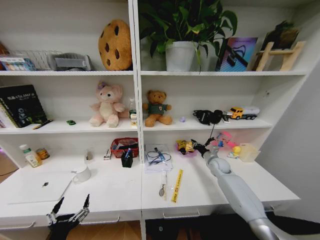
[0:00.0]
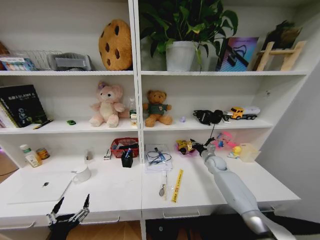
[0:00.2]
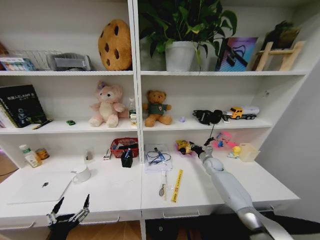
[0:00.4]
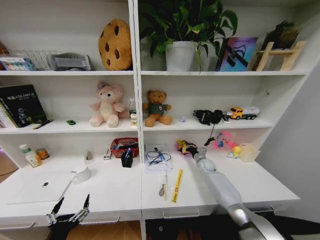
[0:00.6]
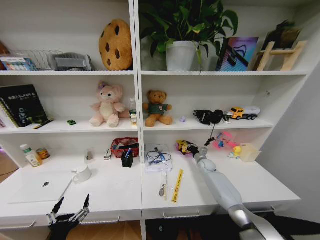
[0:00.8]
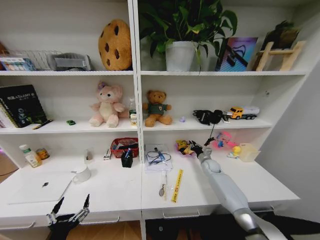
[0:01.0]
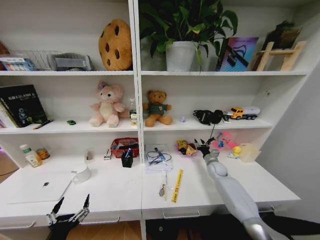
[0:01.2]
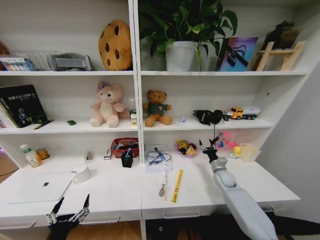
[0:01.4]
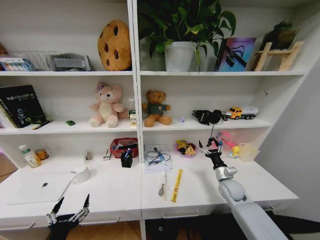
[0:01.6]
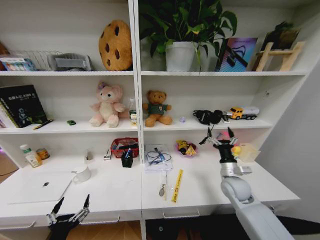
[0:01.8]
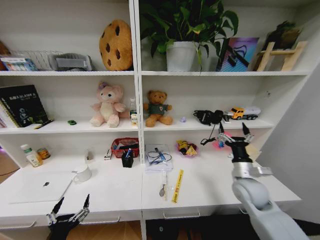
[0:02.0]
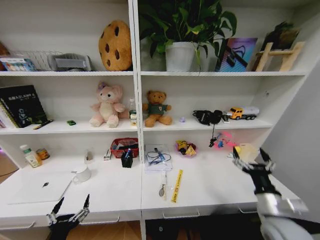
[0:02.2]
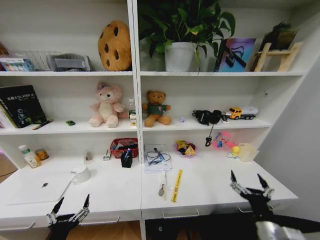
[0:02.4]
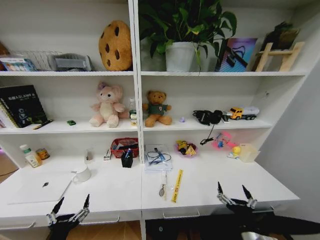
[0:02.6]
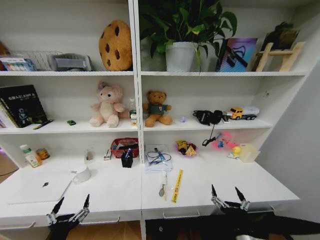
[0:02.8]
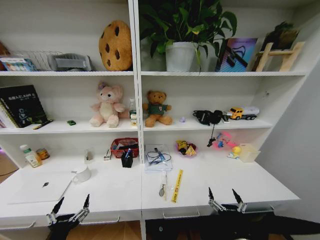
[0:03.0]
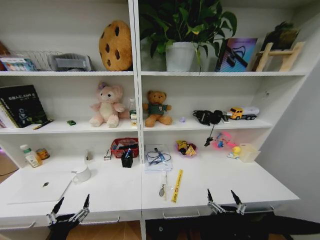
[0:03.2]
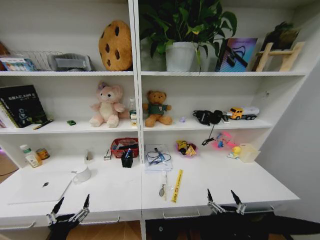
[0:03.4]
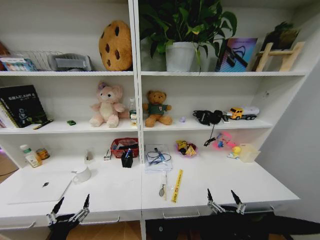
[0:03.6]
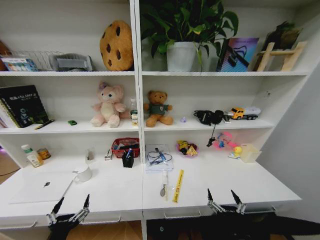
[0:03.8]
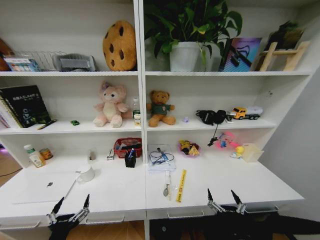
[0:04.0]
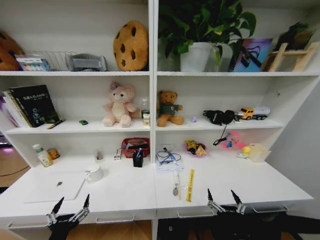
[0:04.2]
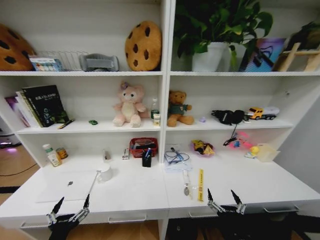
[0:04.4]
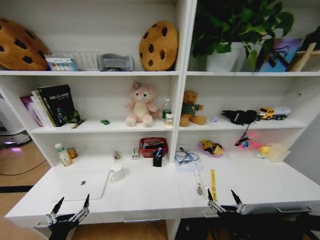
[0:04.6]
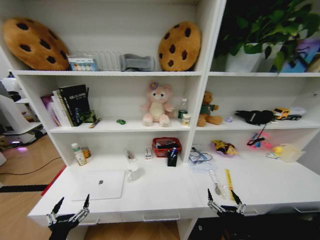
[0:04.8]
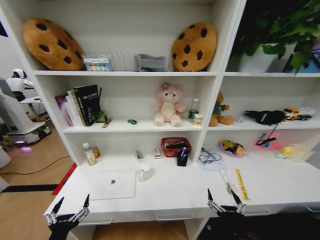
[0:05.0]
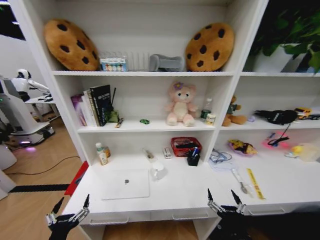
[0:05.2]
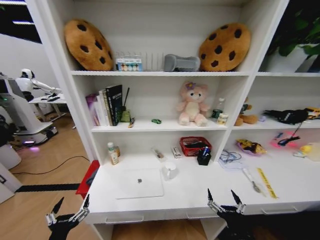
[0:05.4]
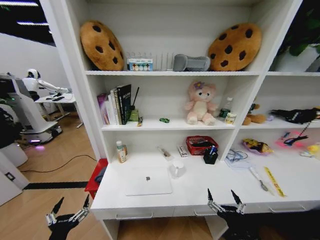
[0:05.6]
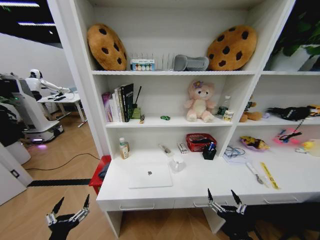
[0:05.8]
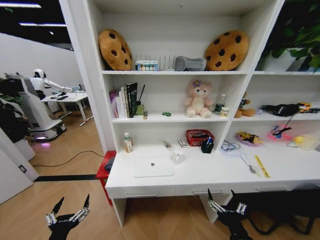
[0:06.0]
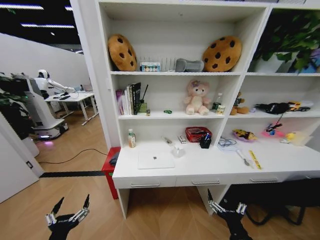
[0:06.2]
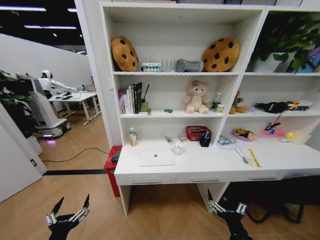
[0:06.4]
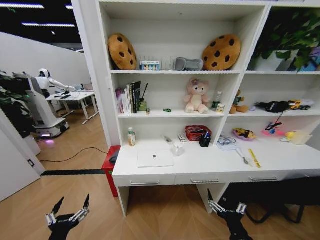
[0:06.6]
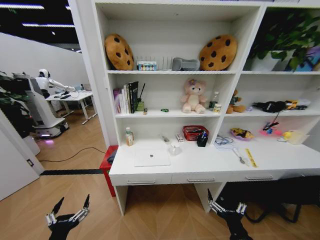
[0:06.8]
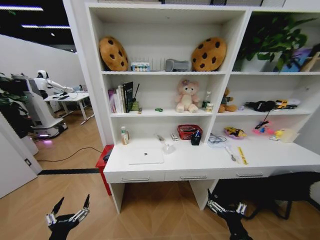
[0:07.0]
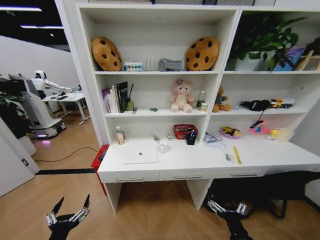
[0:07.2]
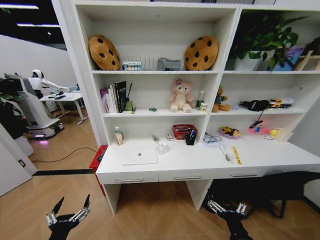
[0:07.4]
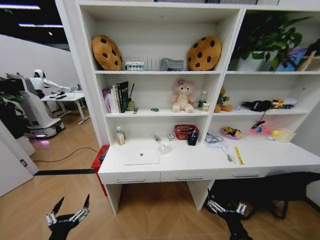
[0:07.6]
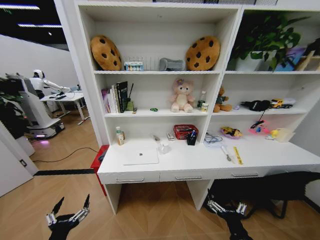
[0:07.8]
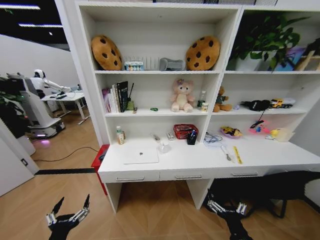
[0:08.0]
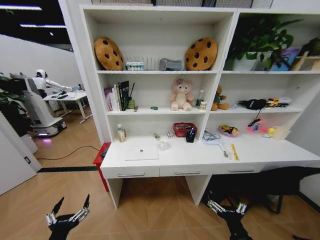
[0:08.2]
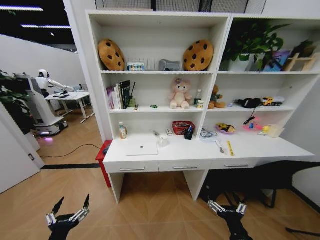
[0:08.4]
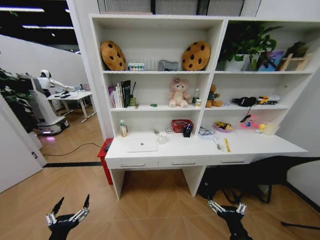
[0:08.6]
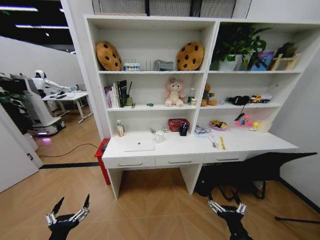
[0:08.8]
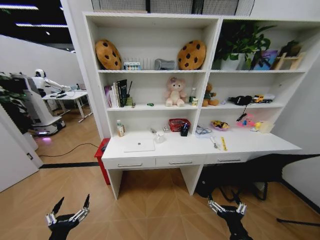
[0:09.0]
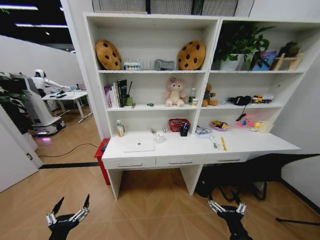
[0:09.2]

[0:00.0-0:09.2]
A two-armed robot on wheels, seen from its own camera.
Task of the whole recording: Organize the objects on the table.
0:00.0 to 0:01.6: The right gripper is displaced backward by approximately 15 cm, and opens.
0:01.6 to 0:03.0: The right gripper travels backward by approximately 30 cm.

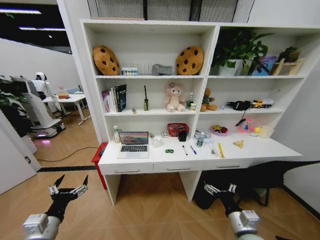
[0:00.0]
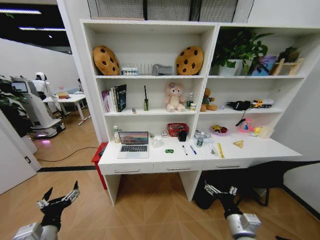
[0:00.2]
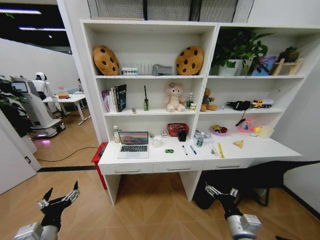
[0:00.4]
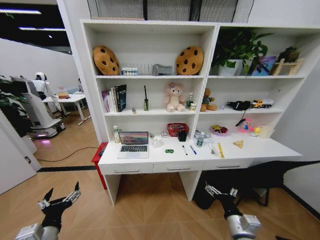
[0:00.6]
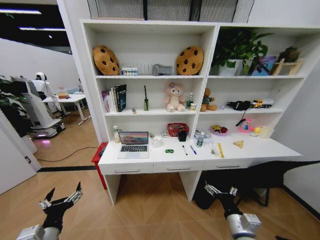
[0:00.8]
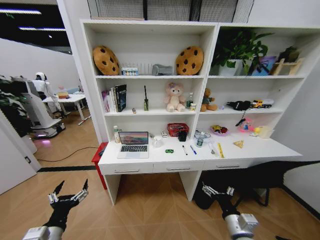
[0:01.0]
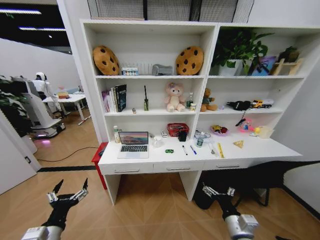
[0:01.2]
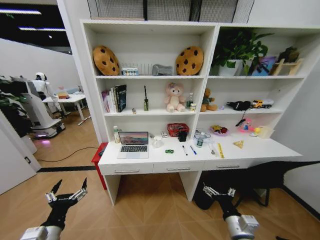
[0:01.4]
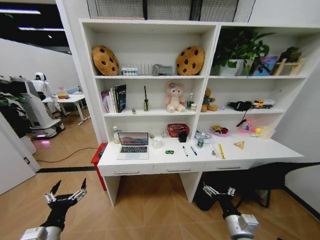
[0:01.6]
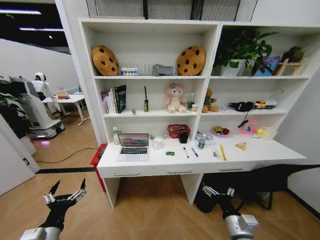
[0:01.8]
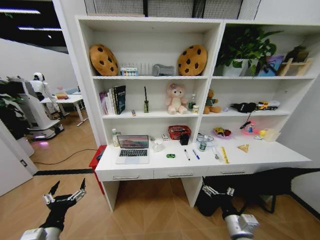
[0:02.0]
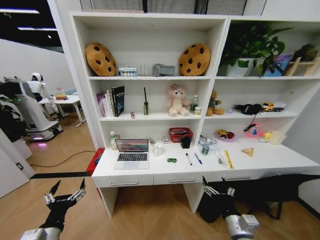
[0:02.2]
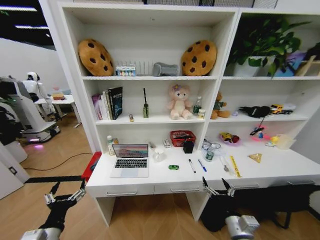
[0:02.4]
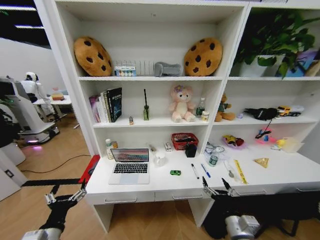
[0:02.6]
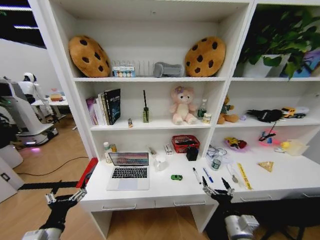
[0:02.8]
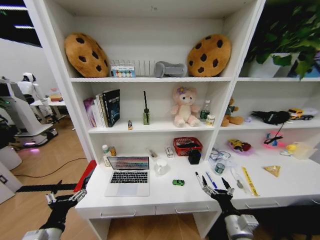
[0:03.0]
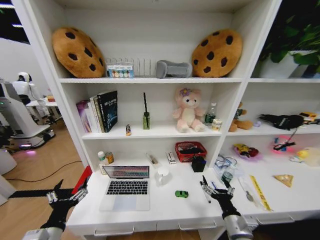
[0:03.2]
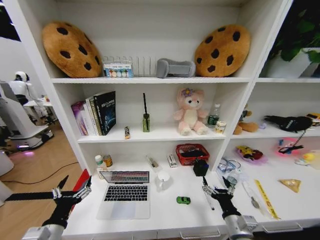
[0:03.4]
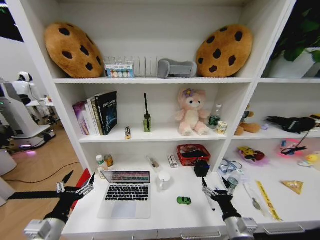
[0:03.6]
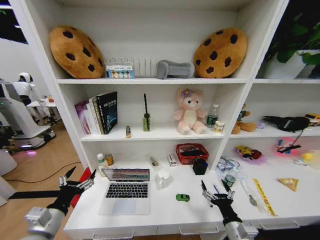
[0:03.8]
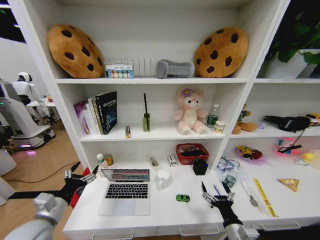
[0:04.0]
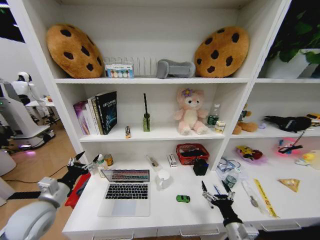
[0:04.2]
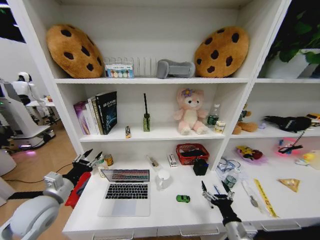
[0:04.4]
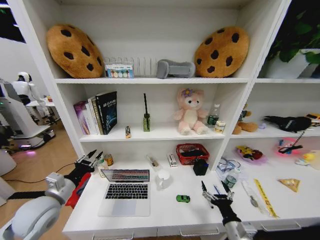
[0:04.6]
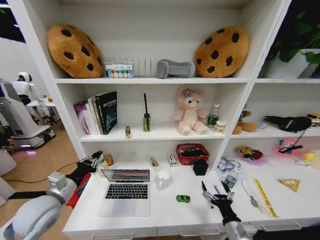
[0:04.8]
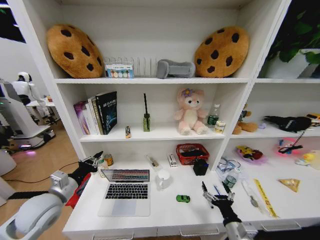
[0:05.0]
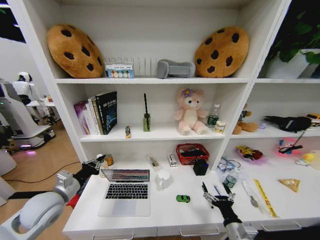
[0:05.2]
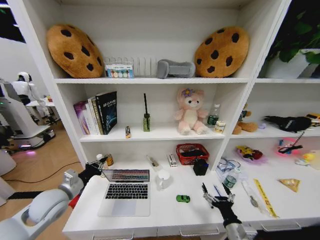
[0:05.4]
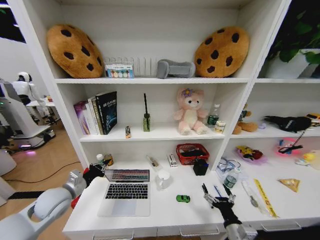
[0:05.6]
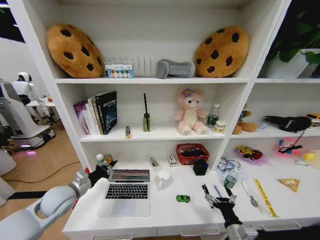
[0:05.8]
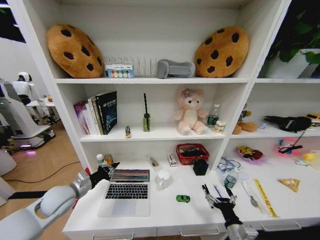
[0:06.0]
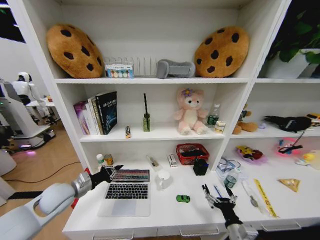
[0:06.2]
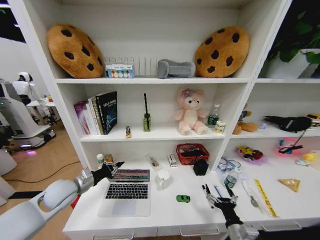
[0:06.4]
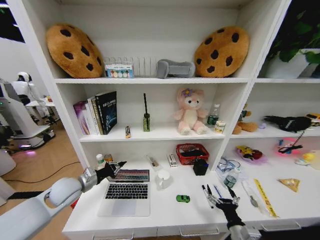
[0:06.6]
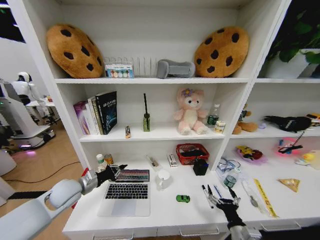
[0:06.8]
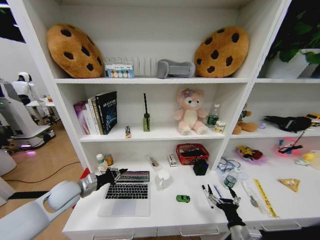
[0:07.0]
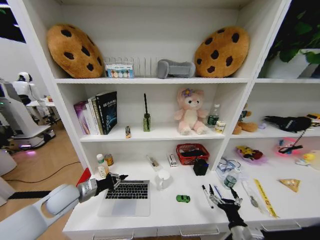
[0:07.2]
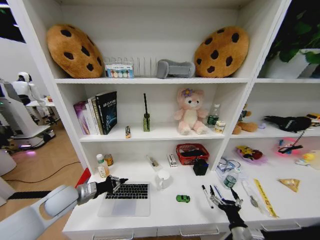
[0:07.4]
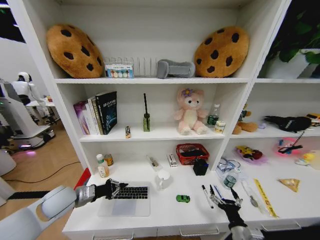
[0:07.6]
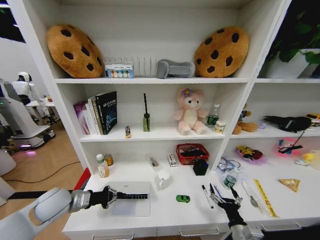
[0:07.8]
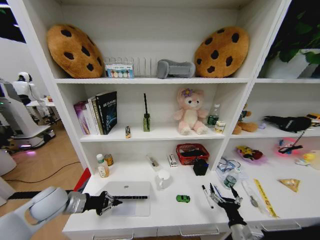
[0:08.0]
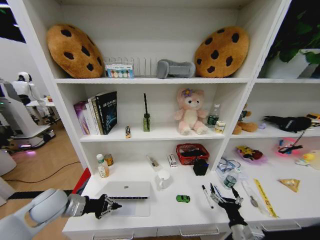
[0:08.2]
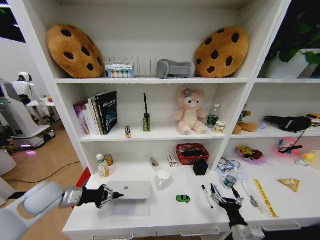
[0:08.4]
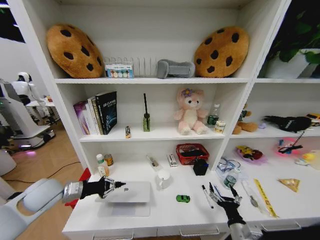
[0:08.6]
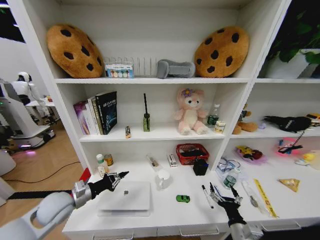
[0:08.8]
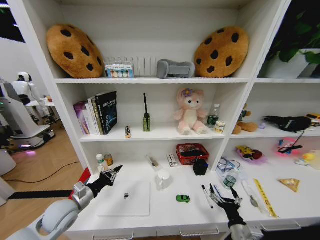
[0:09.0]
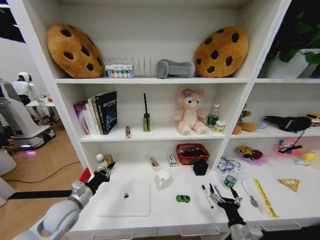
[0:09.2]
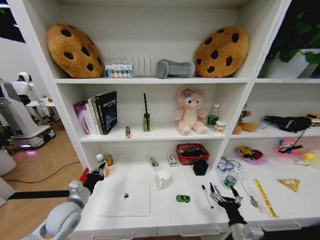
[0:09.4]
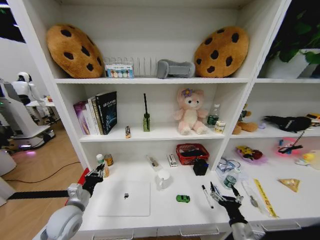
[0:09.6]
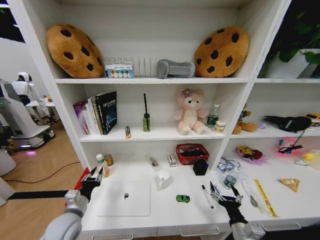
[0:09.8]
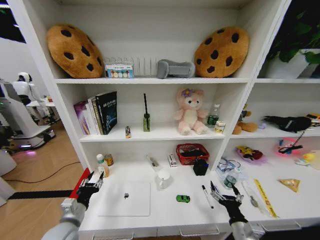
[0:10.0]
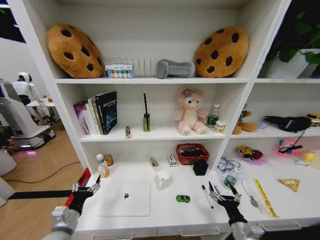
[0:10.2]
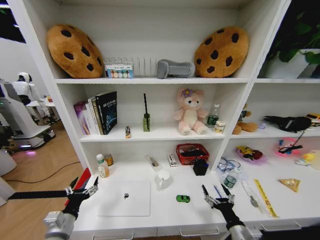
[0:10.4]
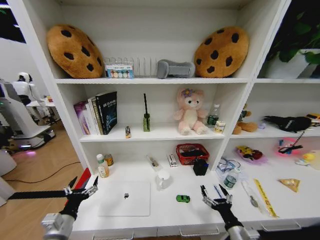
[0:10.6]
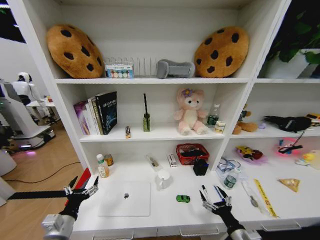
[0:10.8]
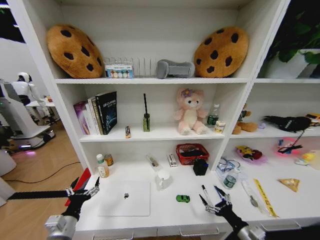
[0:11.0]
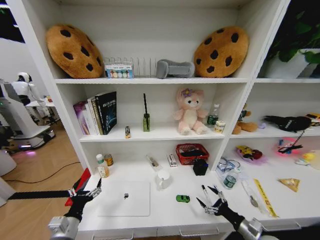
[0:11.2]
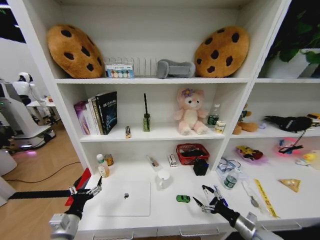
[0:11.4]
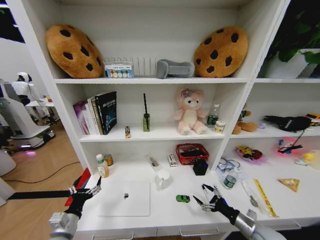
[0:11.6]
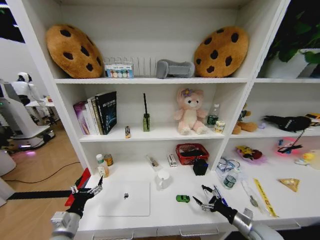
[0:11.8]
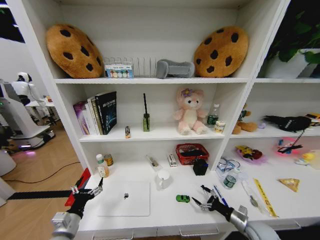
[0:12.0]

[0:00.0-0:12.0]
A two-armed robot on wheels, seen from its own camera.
Task of the whole recording: Organize the objects on the table.
0:03.0 to 0:04.4: The left gripper shifts some 15 cm forward and upward, and closes its fingers.
0:04.4 to 0:06.0: The left gripper travels forward by some 5 cm, and closes its fingers.
0:09.0 to 0:10.4: The left gripper is displaced backward by about 10 cm, and opens its fingers.
0:10.4 to 0:12.0: The right gripper goes roughly 15 cm to the right, forward and downward.

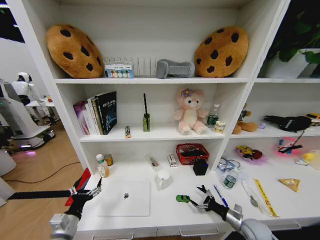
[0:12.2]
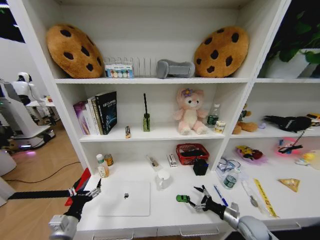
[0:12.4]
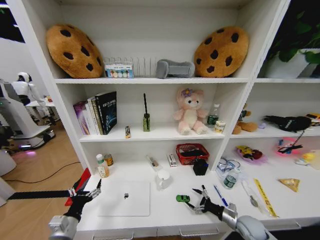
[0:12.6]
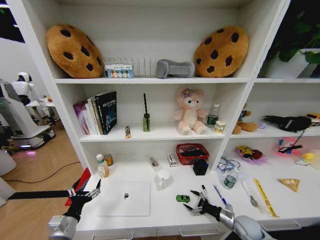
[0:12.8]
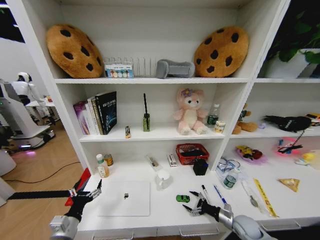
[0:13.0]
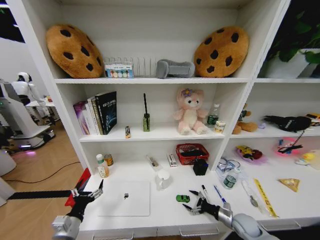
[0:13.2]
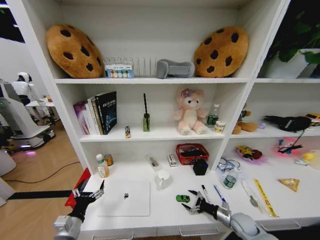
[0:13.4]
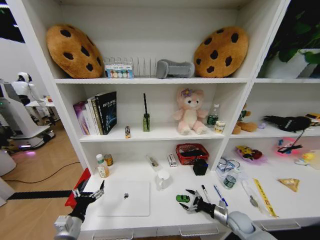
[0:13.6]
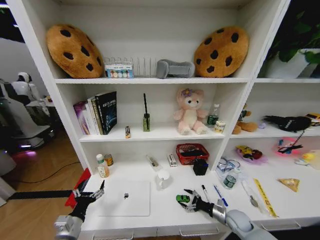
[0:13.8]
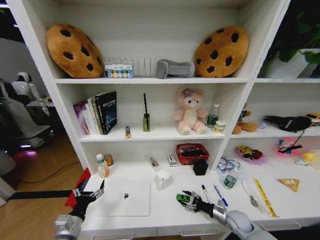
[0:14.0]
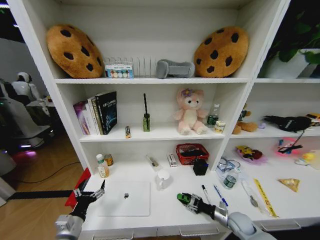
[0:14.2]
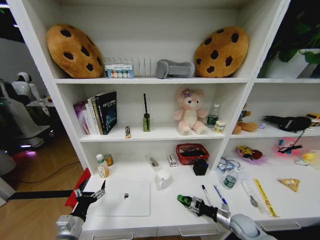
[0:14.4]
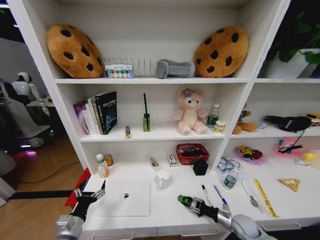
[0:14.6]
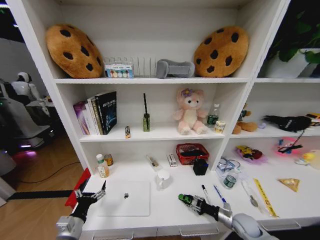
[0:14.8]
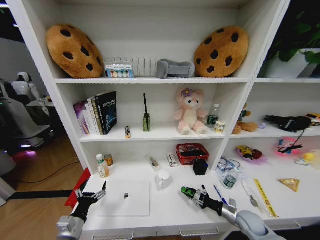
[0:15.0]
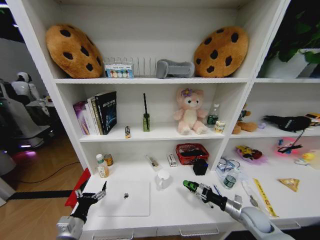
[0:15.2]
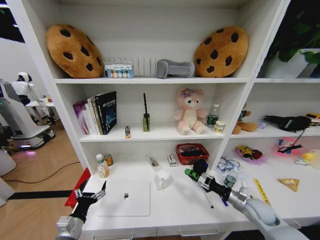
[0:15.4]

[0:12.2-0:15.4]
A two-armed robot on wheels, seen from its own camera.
Task of the whole recording: Organize the objects on the table.
0:12.2 to 0:13.8: The right gripper ends up some 5 cm from where it was.
0:13.8 to 0:15.4: The right gripper heads upward, covering some 10 cm, and closes.
